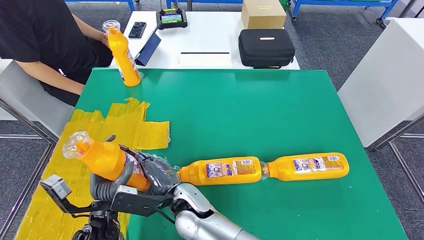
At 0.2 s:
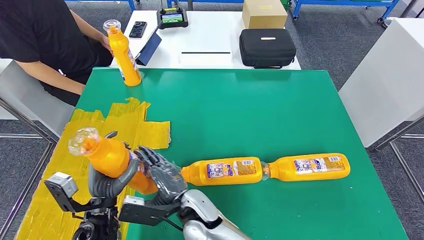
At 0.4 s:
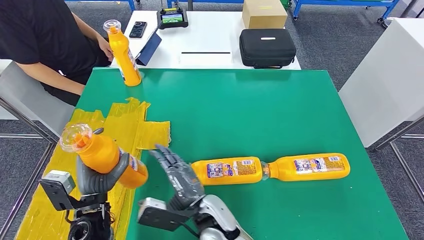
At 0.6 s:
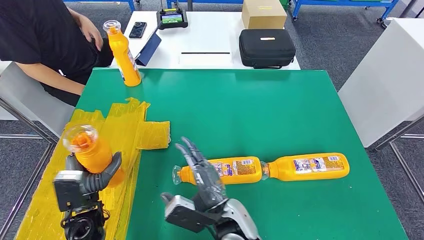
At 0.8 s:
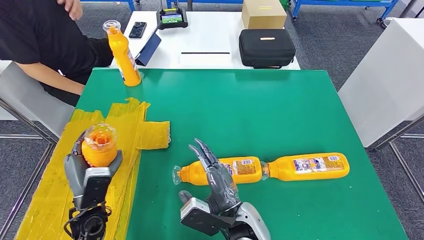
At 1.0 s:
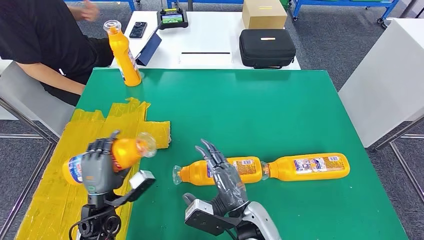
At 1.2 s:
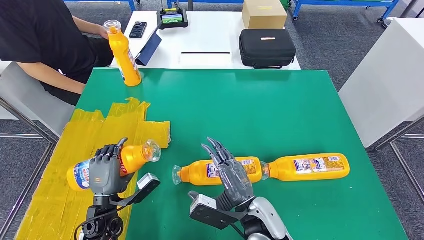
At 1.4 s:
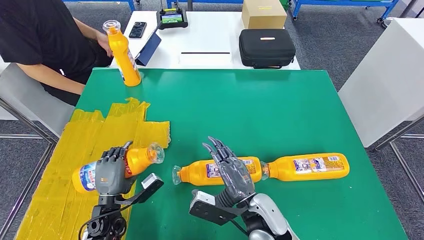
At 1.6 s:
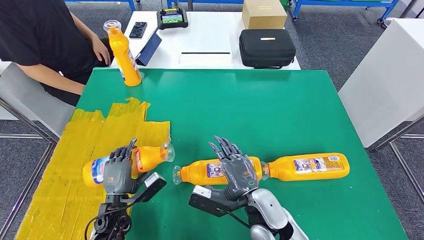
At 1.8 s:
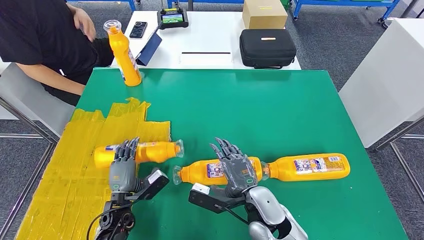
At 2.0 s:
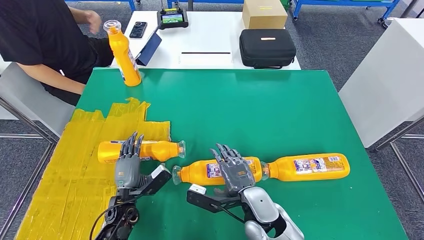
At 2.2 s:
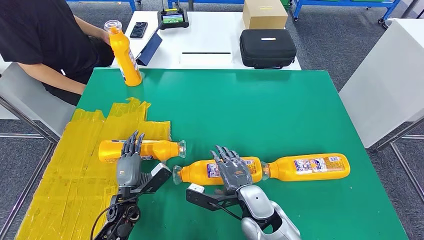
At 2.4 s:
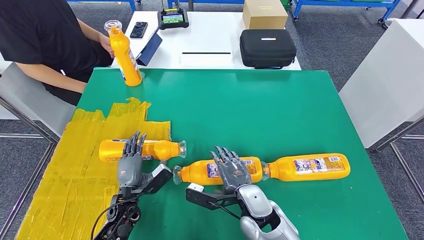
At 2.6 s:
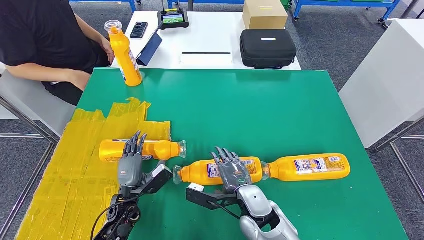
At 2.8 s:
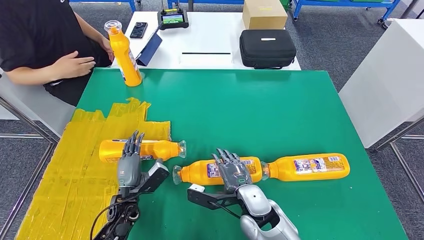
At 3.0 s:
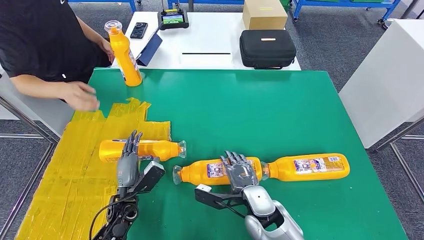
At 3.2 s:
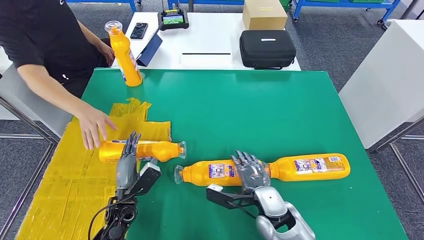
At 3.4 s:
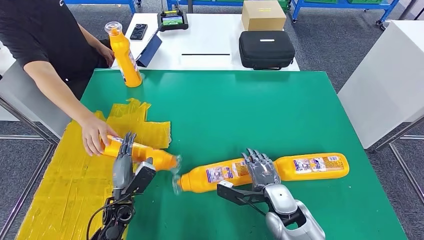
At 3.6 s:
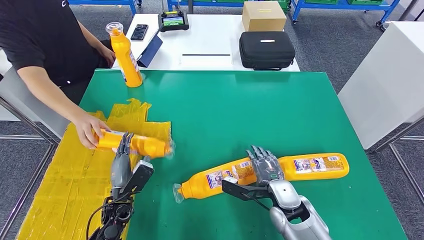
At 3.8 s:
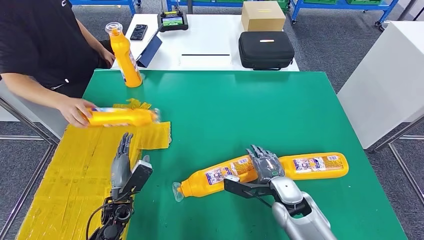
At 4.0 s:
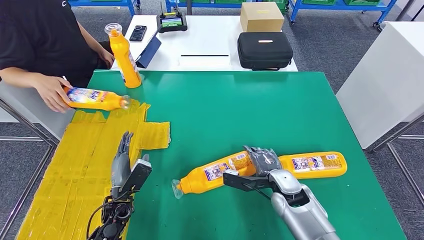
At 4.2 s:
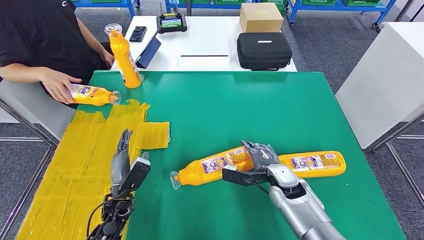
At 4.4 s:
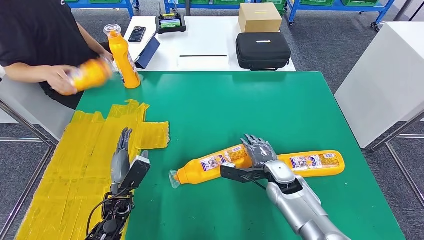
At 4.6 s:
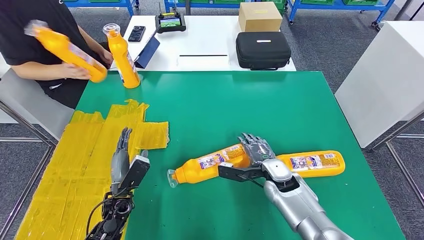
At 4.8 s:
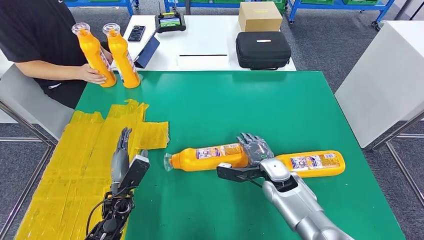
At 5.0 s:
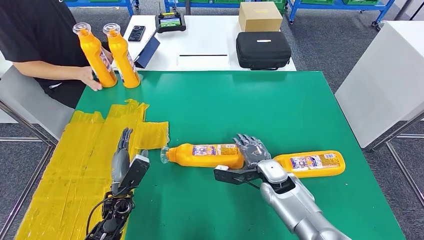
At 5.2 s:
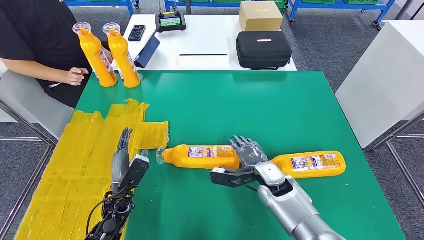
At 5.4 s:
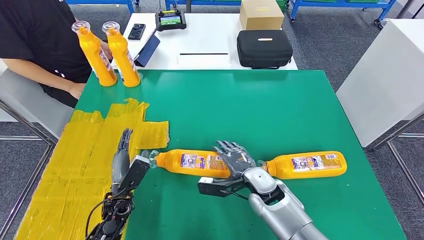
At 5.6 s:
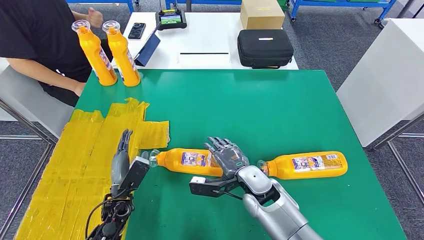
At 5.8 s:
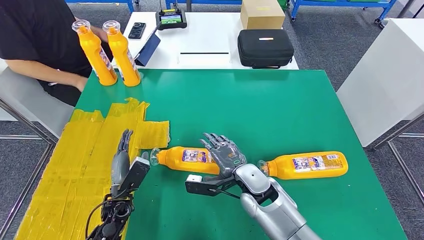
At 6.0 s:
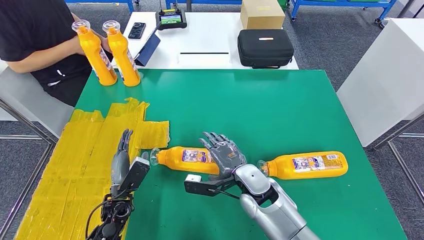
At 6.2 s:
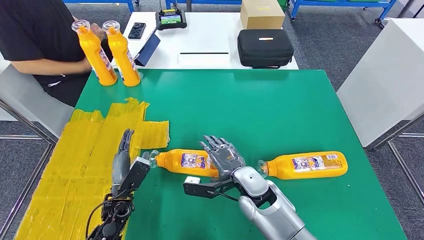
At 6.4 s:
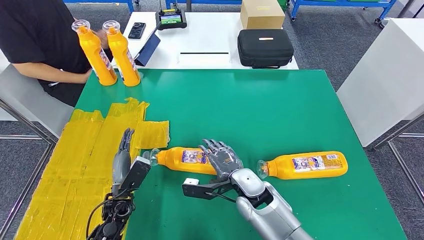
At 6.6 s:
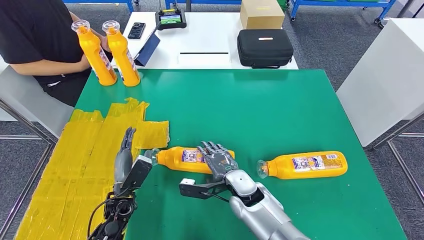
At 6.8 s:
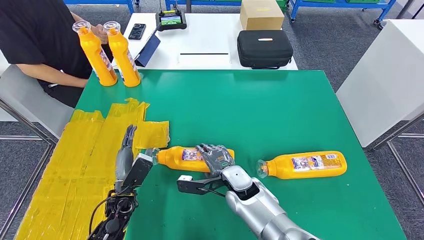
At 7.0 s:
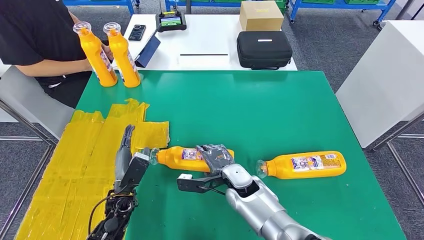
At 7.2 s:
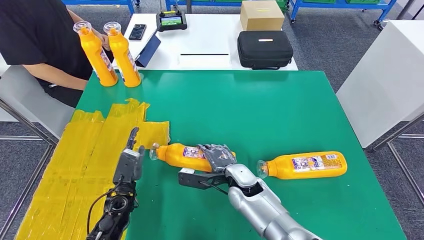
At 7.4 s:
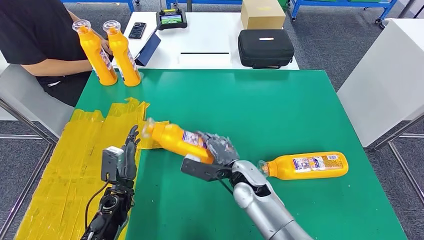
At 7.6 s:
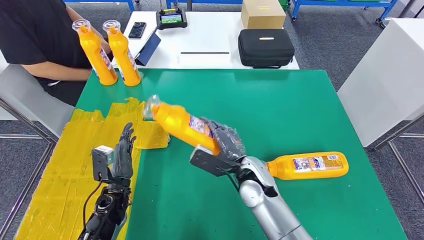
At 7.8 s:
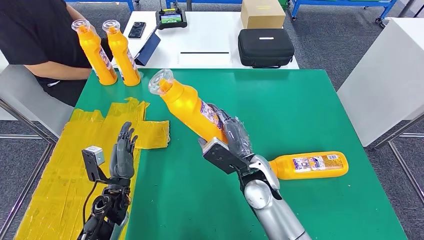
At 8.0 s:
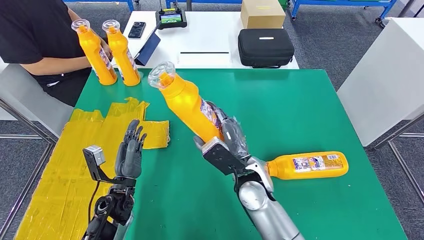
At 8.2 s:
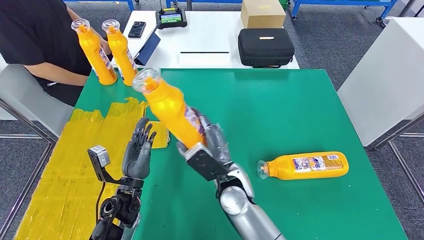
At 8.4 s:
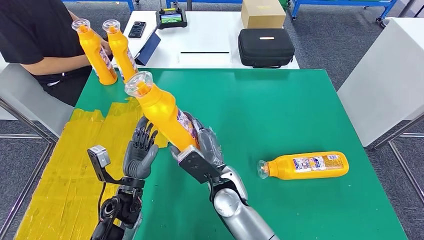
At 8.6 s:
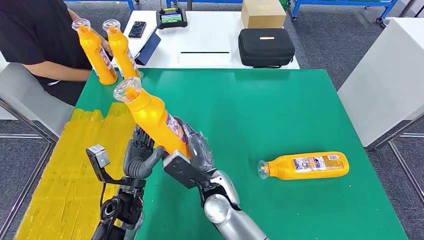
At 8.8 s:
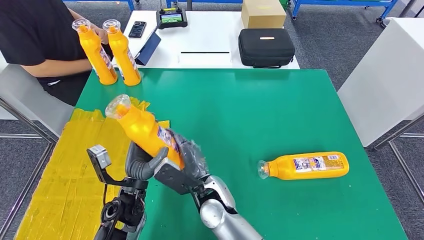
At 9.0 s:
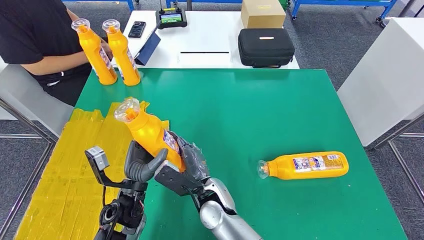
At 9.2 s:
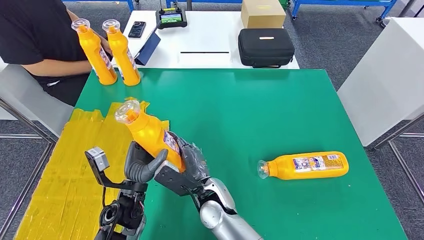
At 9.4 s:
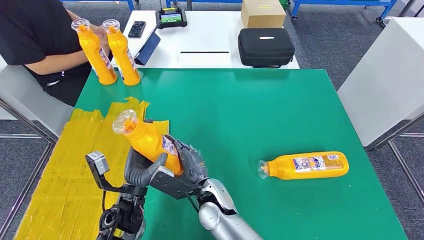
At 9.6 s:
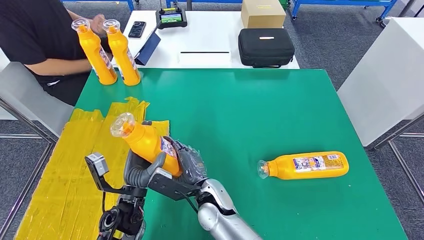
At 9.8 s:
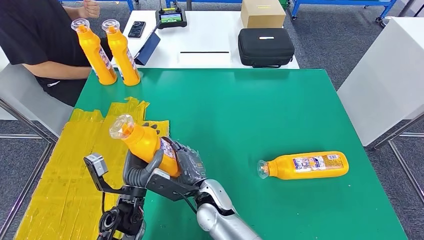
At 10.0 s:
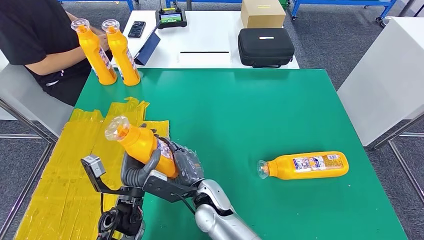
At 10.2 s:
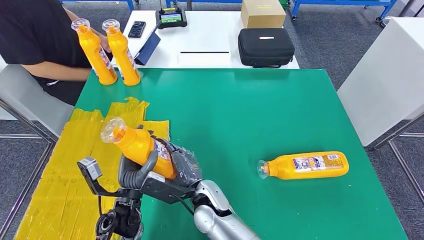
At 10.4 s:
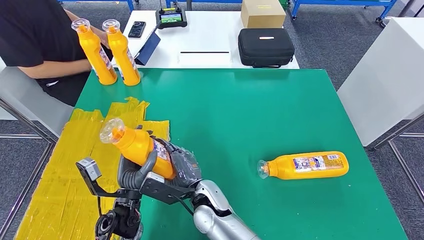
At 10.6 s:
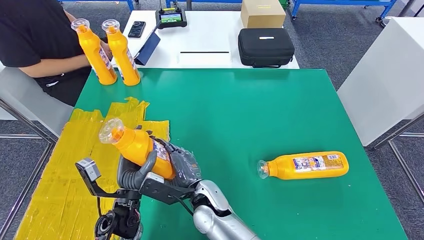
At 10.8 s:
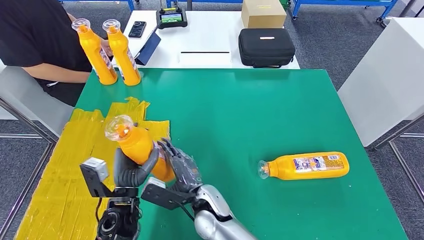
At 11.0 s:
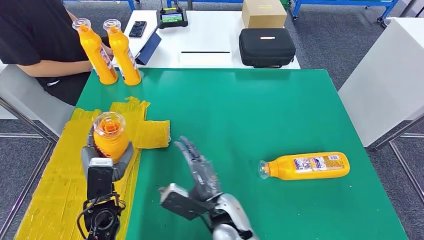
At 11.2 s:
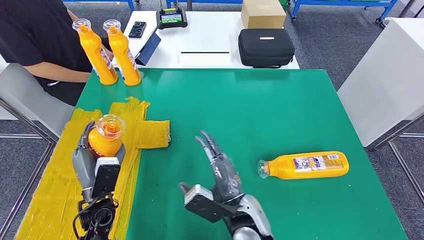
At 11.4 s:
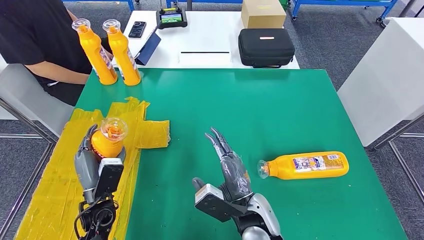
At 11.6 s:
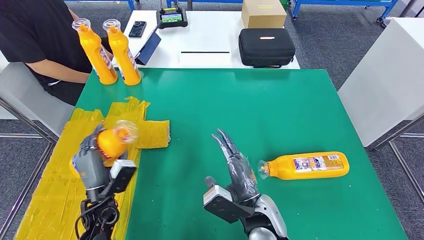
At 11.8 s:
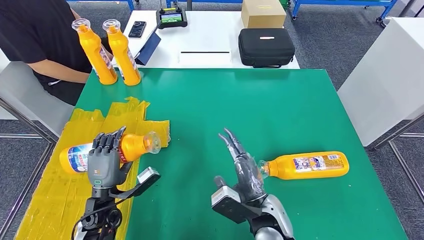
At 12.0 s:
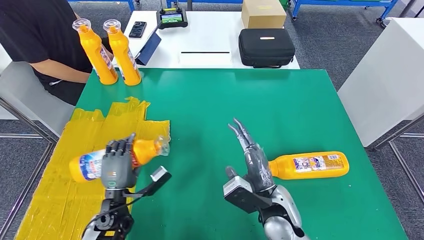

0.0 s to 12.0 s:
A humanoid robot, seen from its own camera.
Step, 0.4 to 2.2 s: Flip the bottle to face forward.
Step, 3.0 to 9.4 s: Pick up the bottle from the table.
0.0 to 1.6 s: The left hand heads downward, covering about 5 cm; the right hand is displaced to the right by approximately 20 cm.
7.6 to 9.0 s: The left hand moves to the right and upward, roughly 10 cm. The right hand travels to the left and backward by some 10 cm.
9.0 to 10.4 s: The hands make only small movements.
10.4 to 12.0 s: The left hand shifts by roughly 5 cm. Meanwhile the right hand shifts some 15 cm to the right.

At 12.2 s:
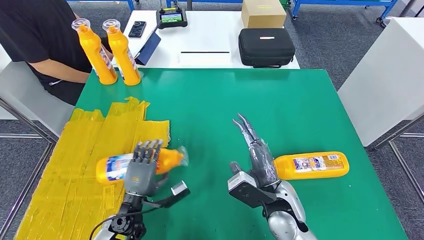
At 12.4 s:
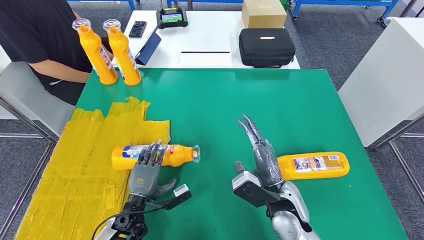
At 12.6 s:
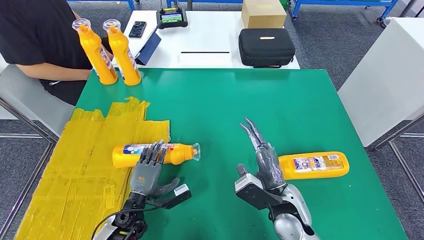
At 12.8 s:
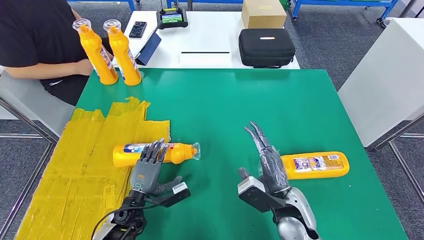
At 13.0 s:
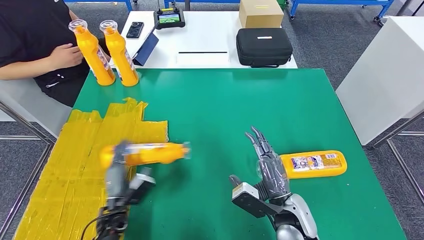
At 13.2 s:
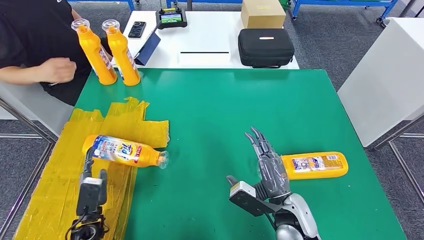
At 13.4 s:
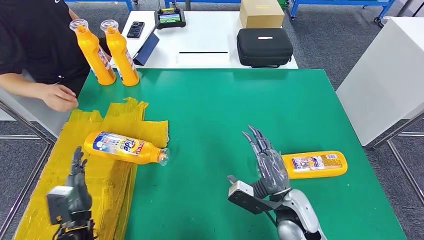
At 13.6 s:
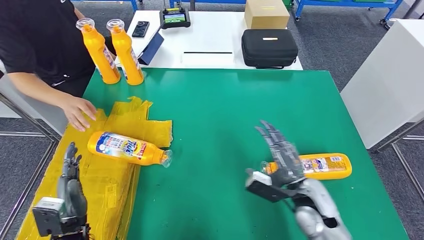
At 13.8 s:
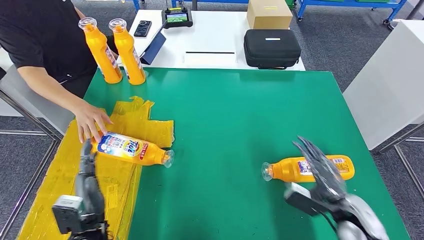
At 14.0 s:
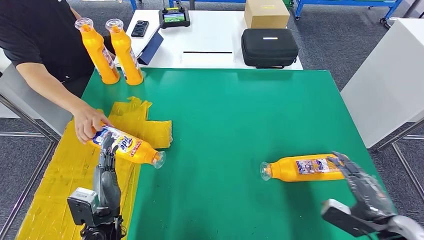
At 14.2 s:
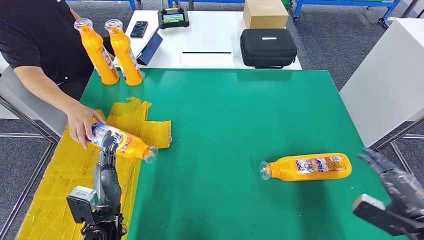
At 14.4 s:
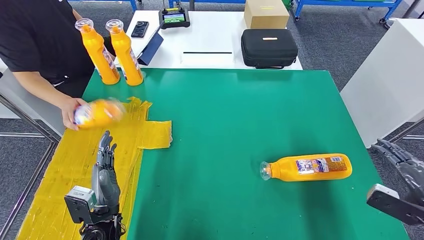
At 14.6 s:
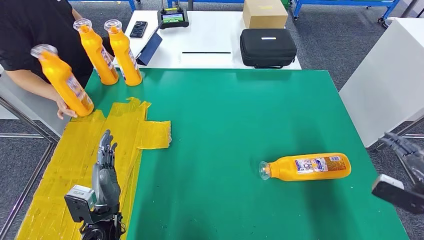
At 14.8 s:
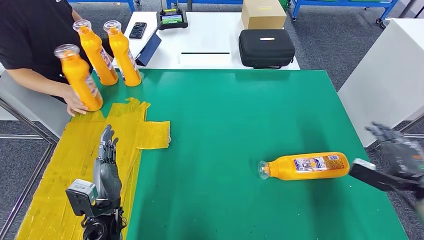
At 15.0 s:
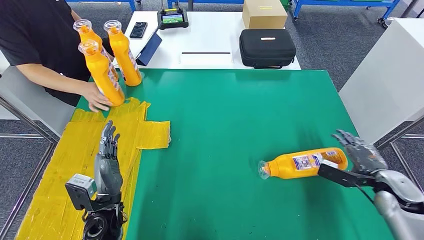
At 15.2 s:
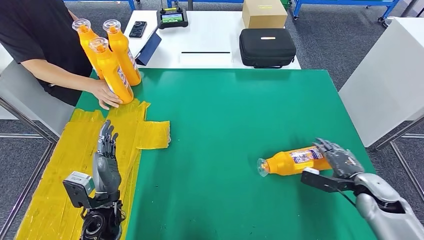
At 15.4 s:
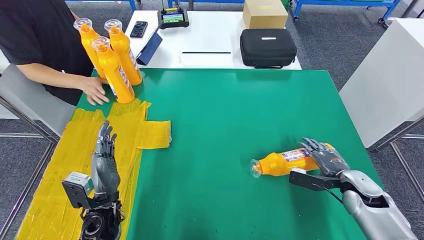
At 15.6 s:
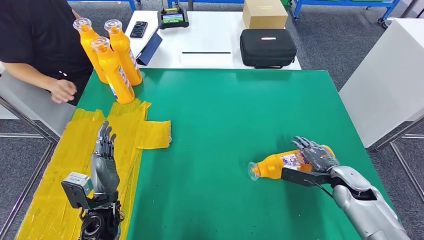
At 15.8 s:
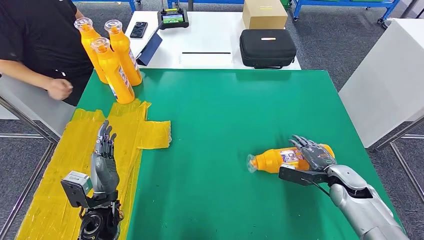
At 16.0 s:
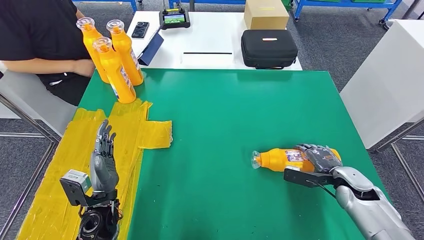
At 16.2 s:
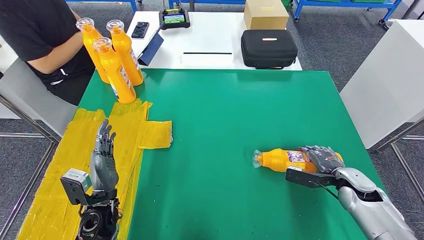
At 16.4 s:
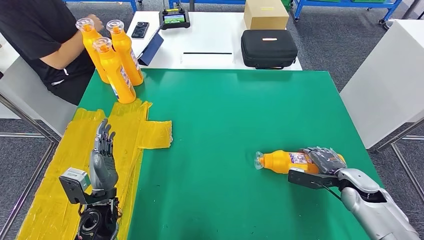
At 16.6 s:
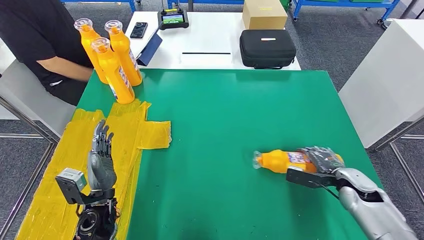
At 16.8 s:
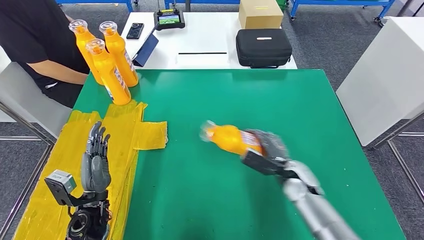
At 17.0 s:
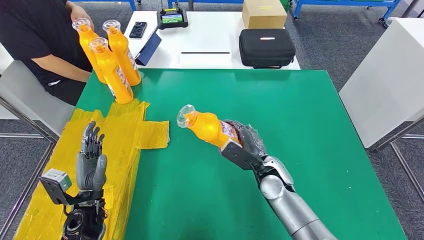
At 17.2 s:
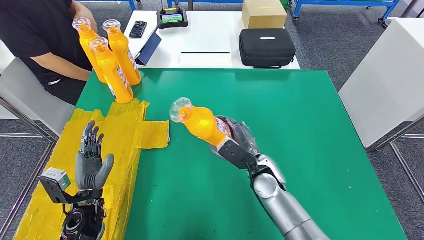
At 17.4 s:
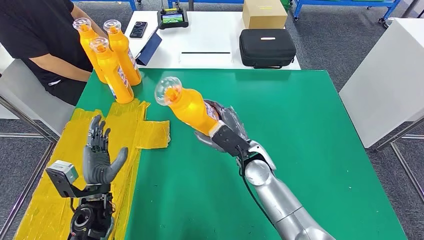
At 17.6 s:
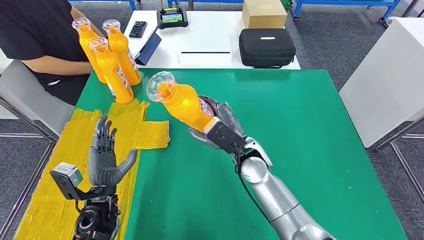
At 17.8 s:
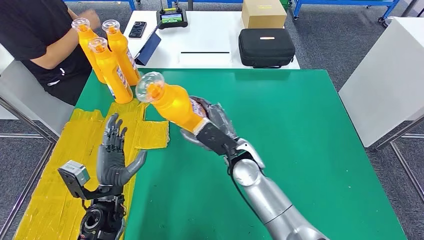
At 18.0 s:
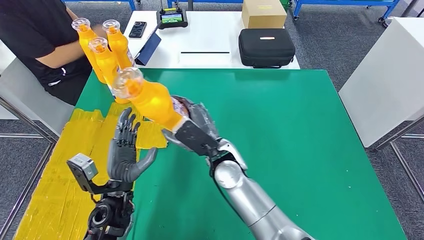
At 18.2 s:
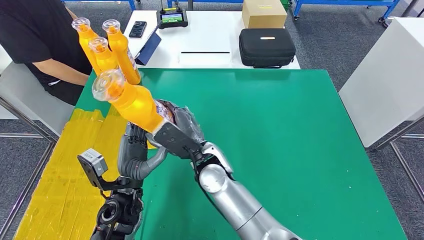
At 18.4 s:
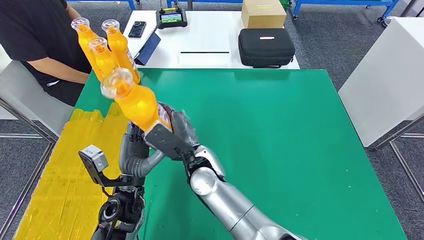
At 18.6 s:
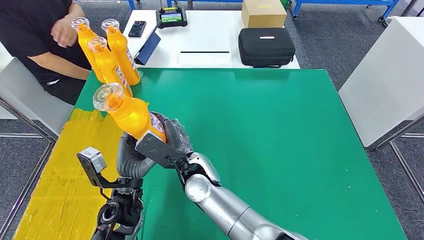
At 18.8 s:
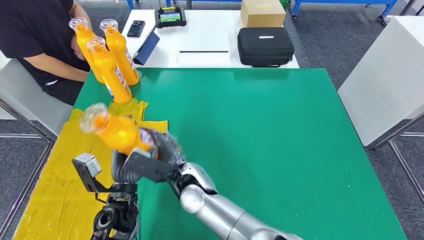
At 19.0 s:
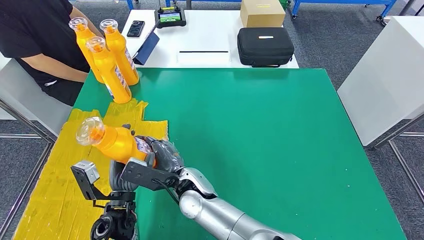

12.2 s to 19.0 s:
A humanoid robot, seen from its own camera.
Step, 13.4 to 18.6 s: Pick up the bottle from the table.
